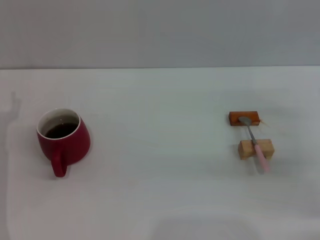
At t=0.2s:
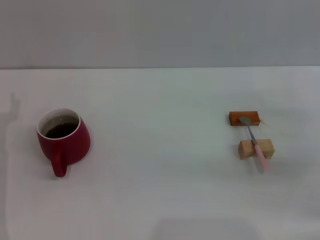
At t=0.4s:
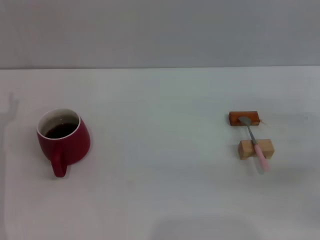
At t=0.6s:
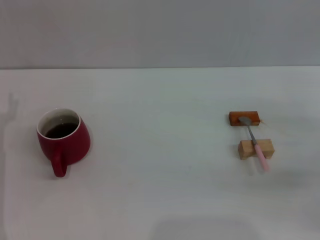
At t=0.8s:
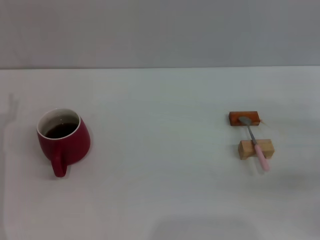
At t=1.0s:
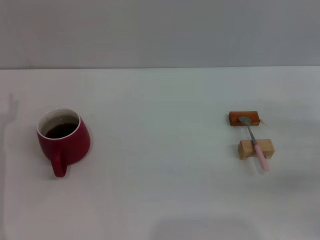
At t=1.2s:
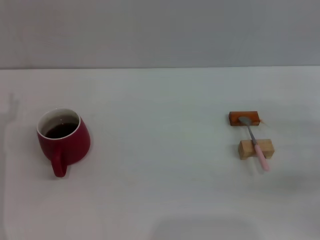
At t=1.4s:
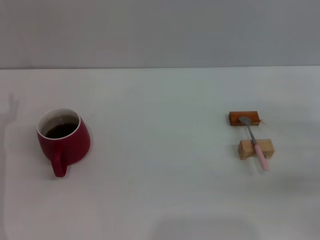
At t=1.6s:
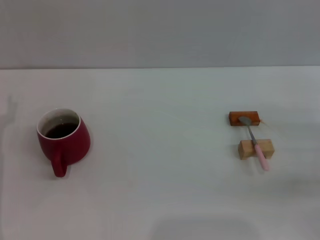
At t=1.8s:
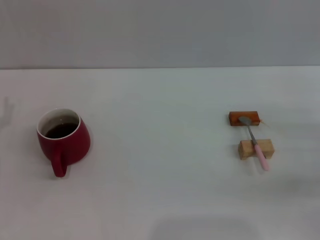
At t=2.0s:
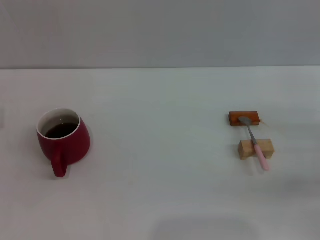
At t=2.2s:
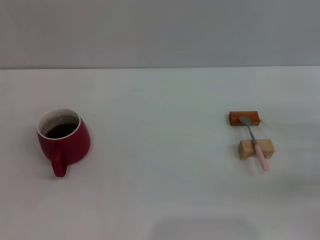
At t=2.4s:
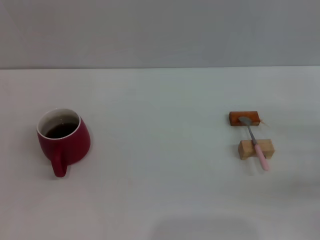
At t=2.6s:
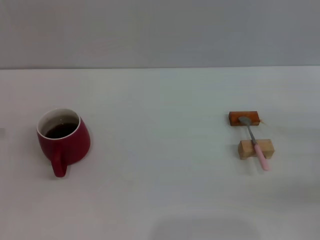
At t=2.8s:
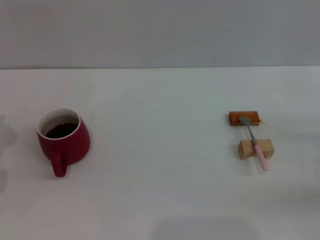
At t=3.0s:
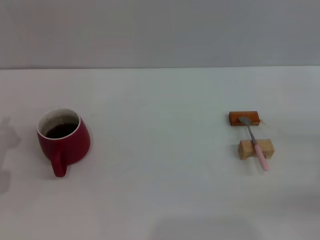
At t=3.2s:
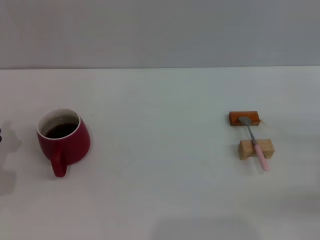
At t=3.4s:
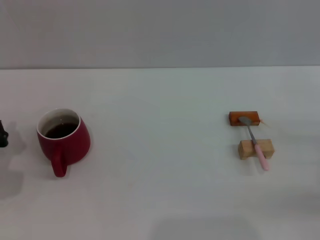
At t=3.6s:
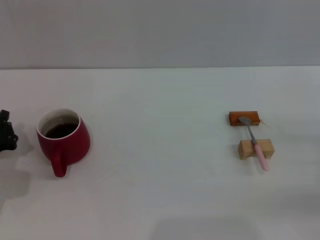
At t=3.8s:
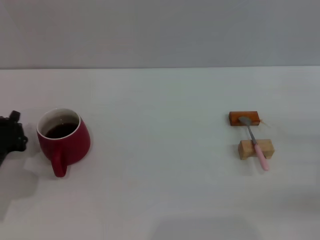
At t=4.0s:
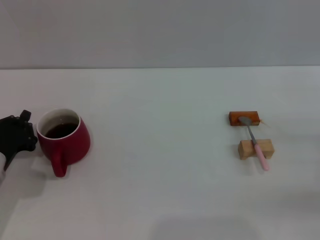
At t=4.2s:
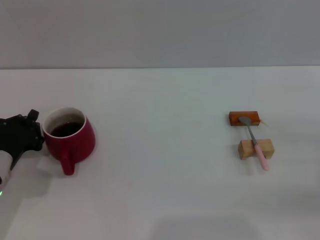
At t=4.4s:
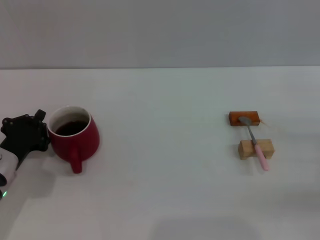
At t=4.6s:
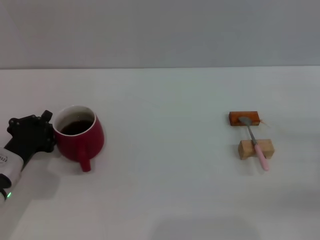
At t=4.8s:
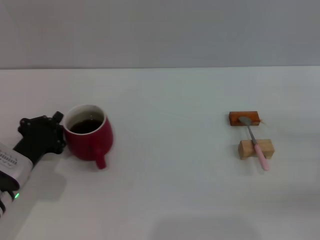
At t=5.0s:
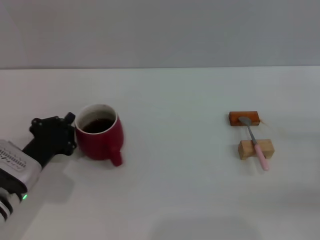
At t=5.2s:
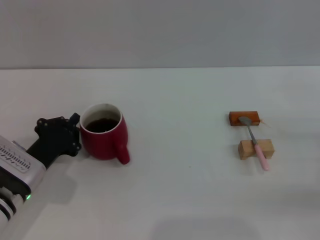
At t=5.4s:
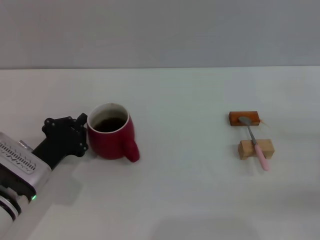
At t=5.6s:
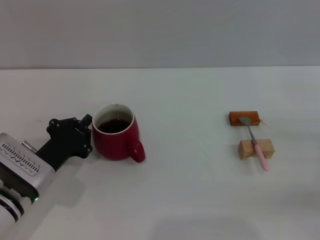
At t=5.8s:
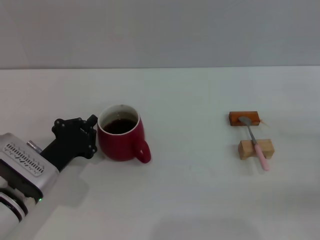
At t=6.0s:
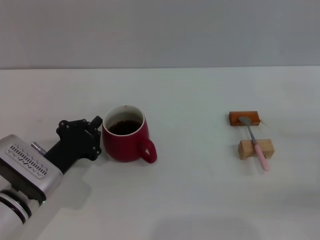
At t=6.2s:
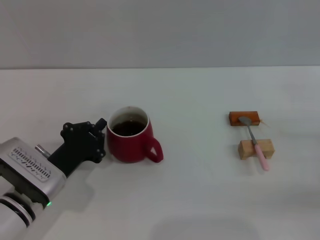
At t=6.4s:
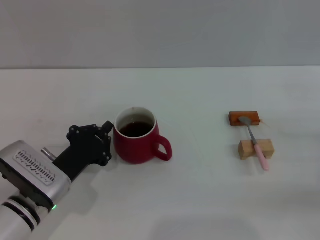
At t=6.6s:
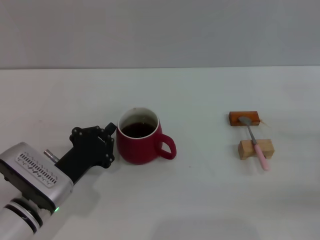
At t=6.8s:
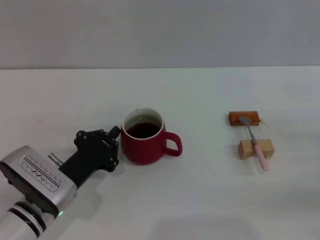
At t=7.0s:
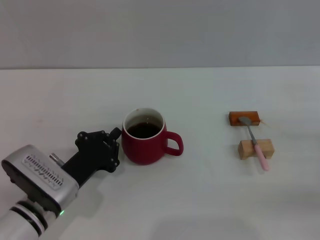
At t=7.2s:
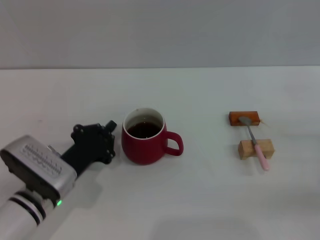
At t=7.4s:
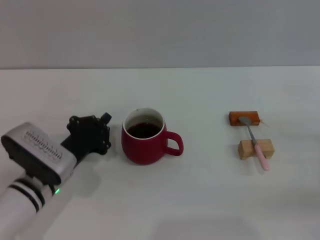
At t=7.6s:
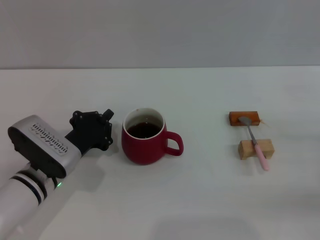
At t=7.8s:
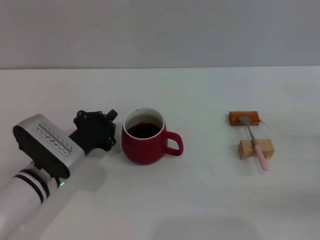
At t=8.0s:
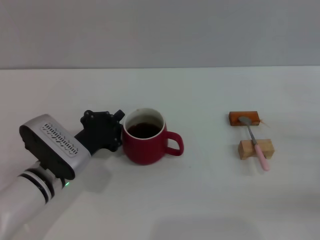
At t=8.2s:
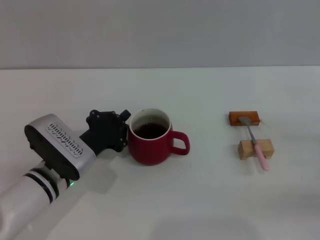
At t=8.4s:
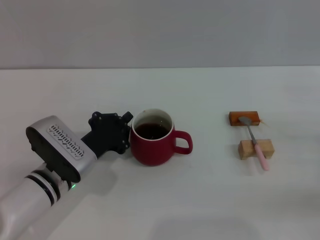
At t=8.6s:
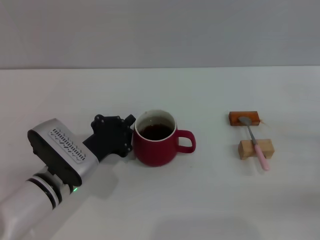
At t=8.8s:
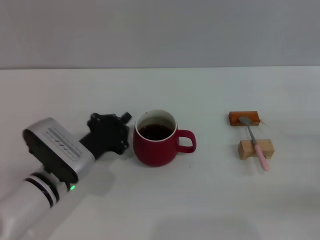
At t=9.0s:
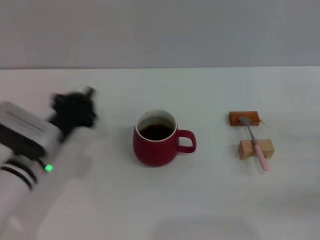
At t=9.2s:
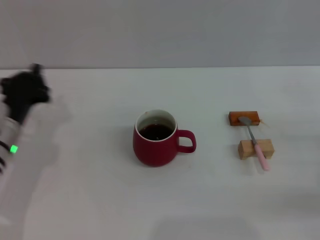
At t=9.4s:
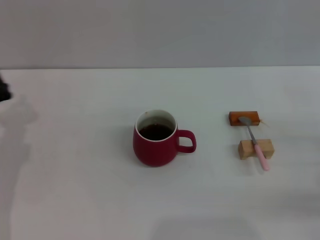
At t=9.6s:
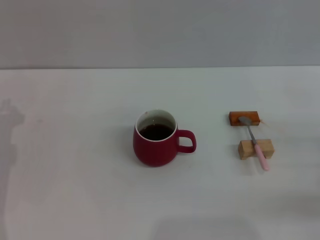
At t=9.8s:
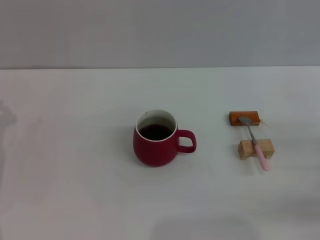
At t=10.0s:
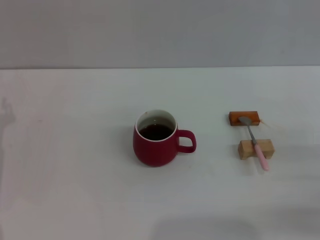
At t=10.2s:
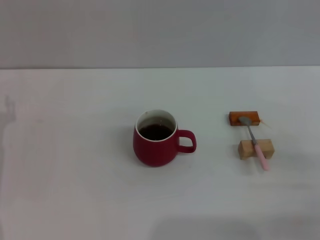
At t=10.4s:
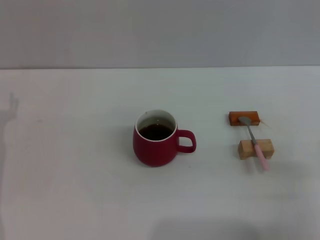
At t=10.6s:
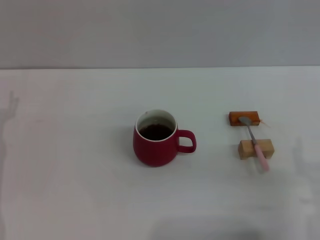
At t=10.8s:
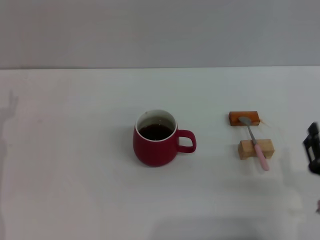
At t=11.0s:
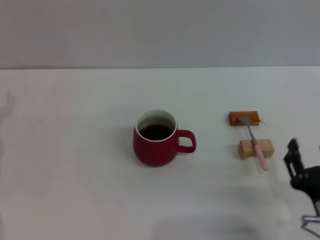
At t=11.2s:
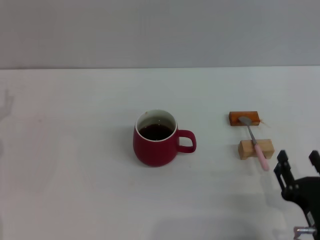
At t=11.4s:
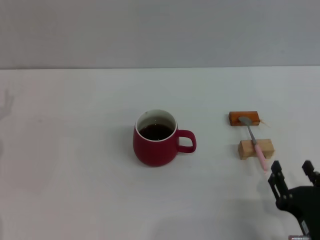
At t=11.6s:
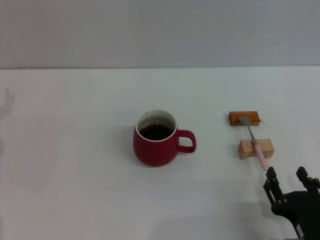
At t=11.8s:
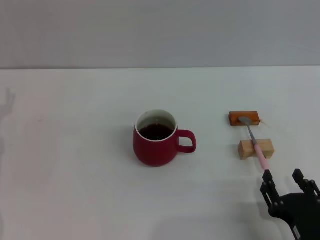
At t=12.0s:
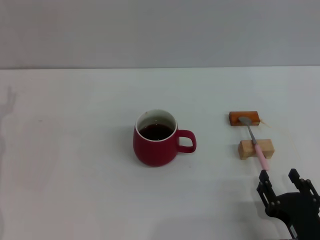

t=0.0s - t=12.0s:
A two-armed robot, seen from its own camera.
Task of the whole recording: Move the red cup to the center, lift the pink spoon, stir it three times in the cup, and put the spoon into the cup.
Step, t=0.0s - t=8.8s: Move the cup with coffee to the center of view with the left gripper.
t=3.0s - t=4.4s: The left gripper ends up about 5 cm from where it was.
t=4.4s - t=6.0s: The left gripper moves to the right, roughly 5 cm.
t=6.0s - t=9.0s: There are only small adjustments of the grippers.
t=9.0s - t=10.4s: The right gripper moves to the left and backward, roughly 10 cm. The left gripper shifts some 10 cm to the left, and opens.
t=10.4s - t=12.0s: The right gripper shifts approximately 10 cm to the left and backward.

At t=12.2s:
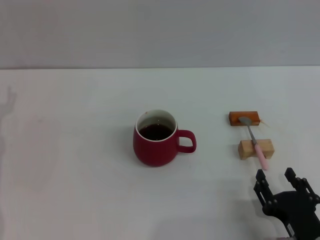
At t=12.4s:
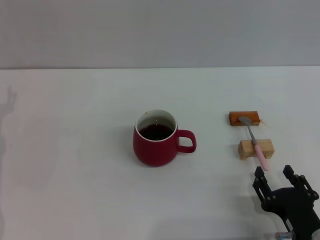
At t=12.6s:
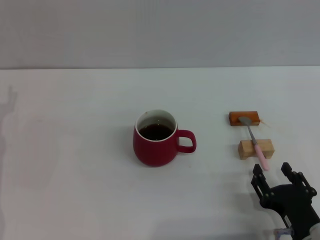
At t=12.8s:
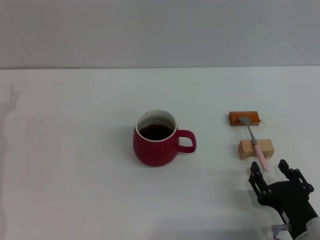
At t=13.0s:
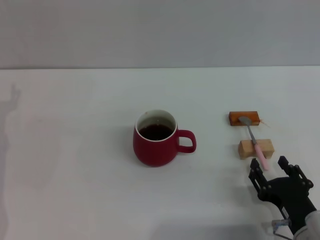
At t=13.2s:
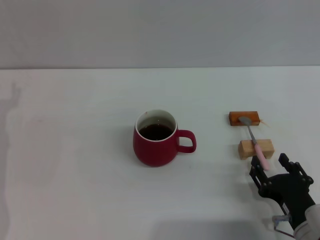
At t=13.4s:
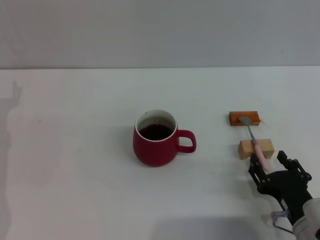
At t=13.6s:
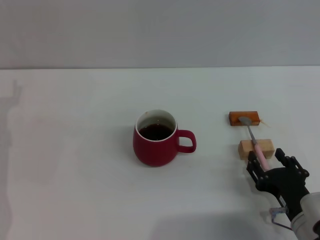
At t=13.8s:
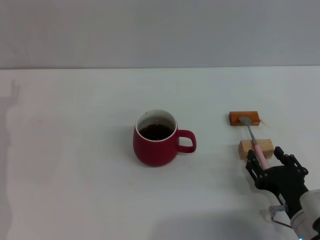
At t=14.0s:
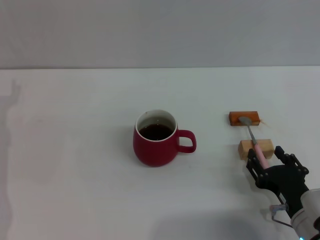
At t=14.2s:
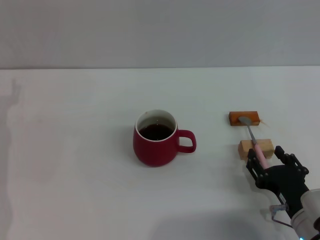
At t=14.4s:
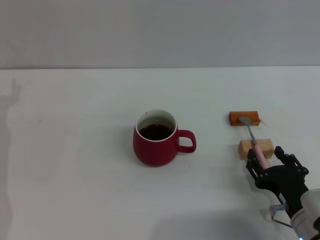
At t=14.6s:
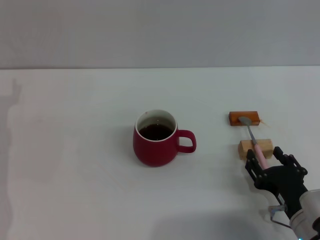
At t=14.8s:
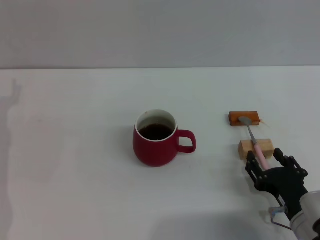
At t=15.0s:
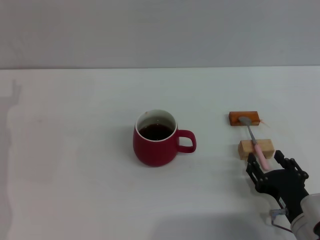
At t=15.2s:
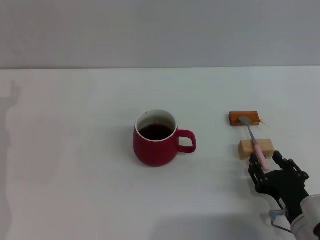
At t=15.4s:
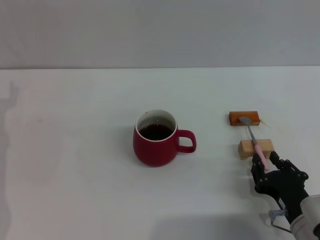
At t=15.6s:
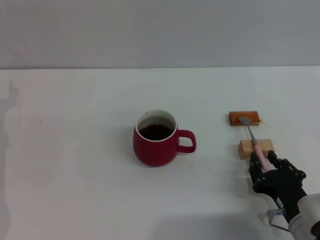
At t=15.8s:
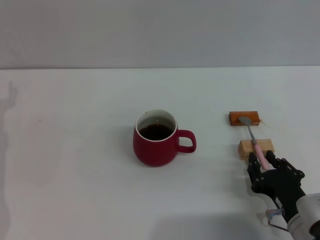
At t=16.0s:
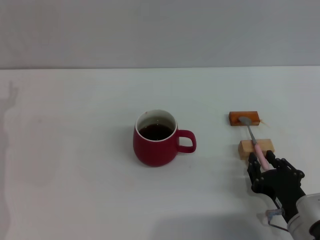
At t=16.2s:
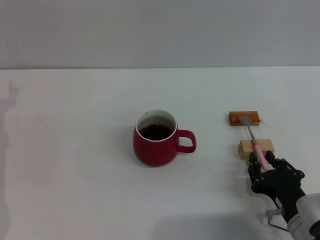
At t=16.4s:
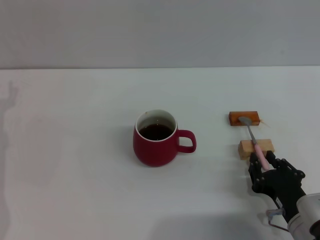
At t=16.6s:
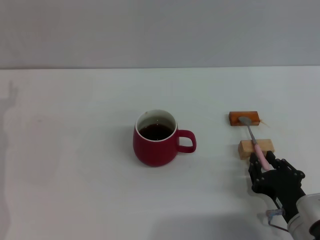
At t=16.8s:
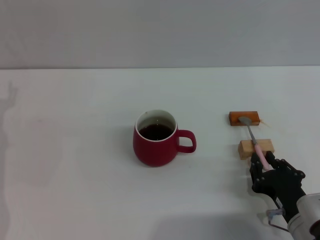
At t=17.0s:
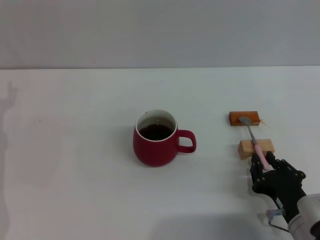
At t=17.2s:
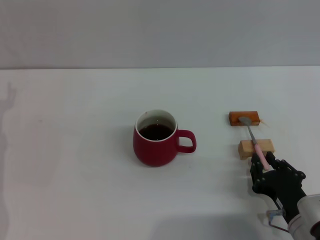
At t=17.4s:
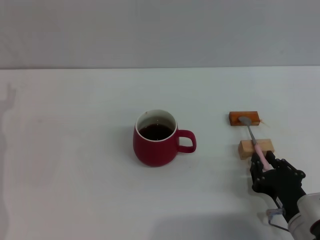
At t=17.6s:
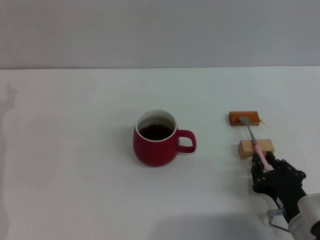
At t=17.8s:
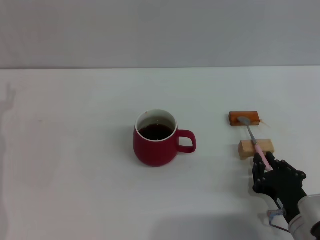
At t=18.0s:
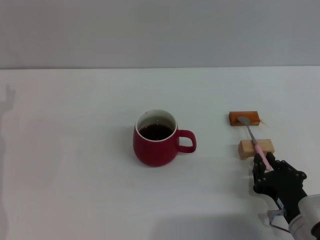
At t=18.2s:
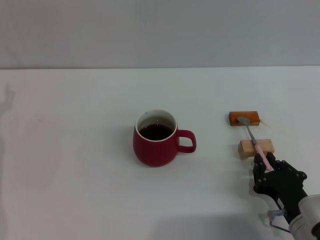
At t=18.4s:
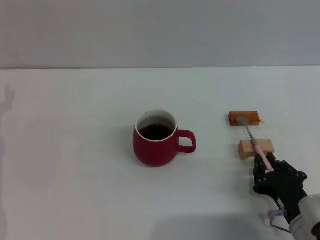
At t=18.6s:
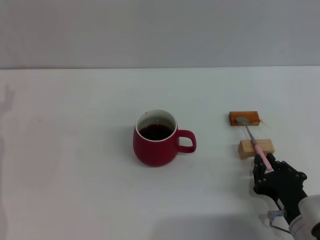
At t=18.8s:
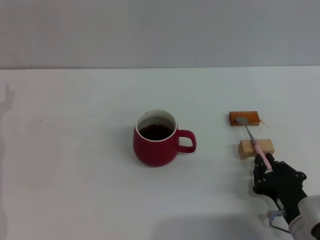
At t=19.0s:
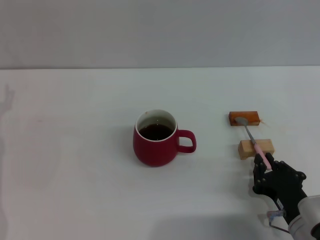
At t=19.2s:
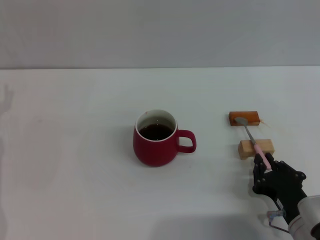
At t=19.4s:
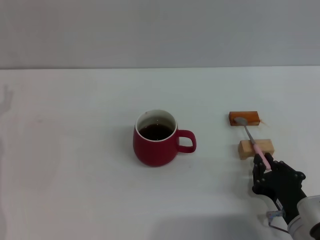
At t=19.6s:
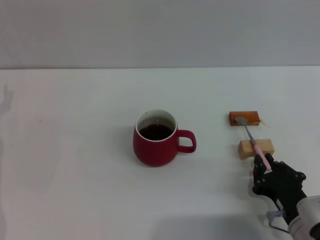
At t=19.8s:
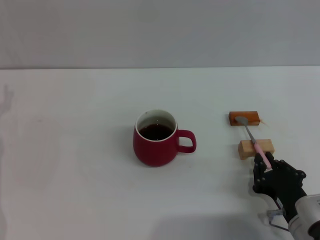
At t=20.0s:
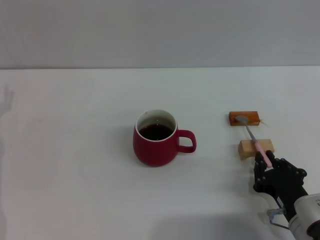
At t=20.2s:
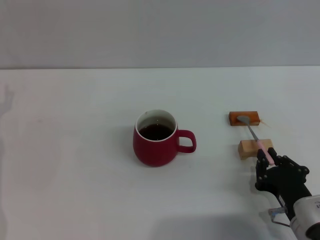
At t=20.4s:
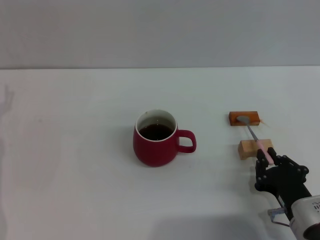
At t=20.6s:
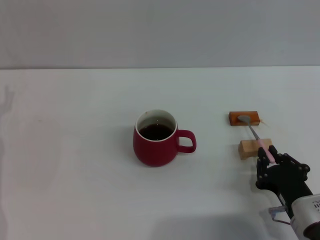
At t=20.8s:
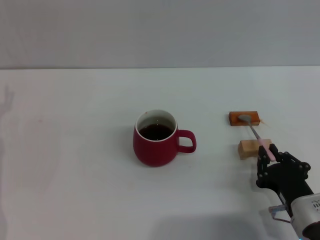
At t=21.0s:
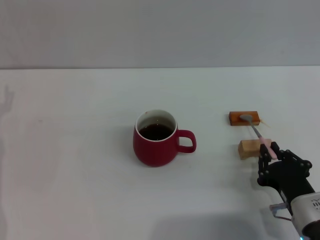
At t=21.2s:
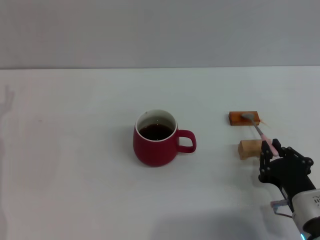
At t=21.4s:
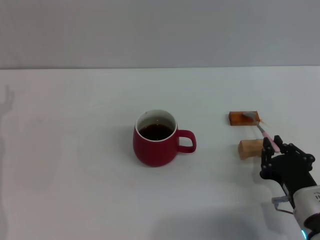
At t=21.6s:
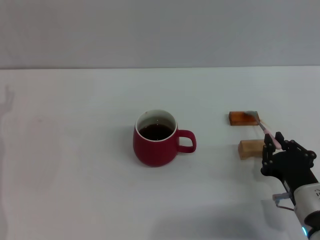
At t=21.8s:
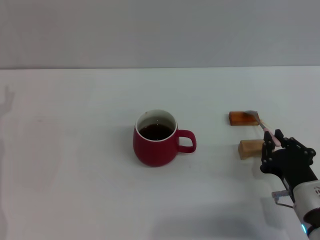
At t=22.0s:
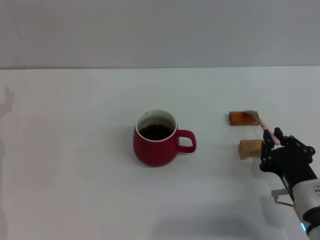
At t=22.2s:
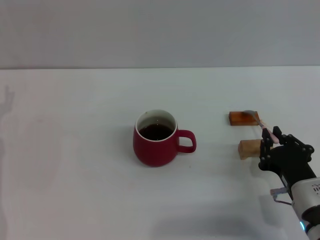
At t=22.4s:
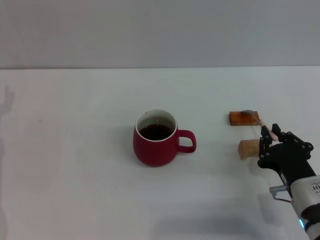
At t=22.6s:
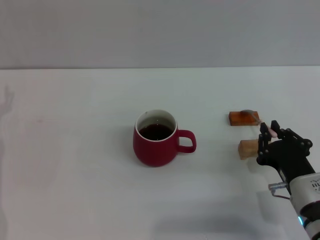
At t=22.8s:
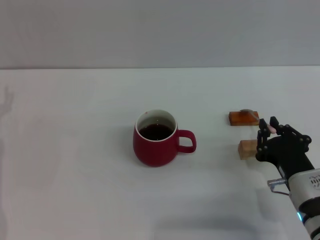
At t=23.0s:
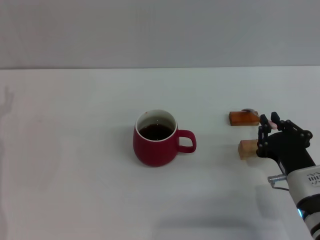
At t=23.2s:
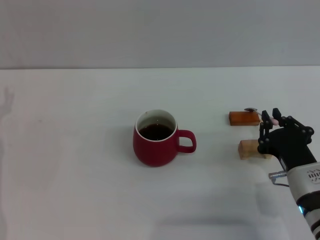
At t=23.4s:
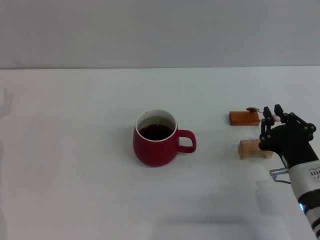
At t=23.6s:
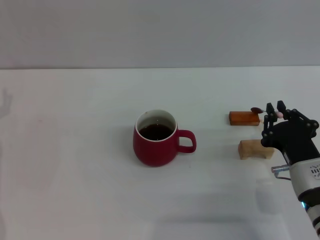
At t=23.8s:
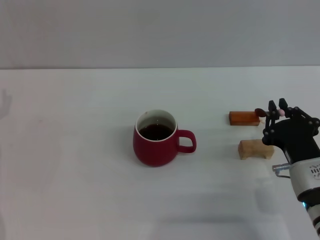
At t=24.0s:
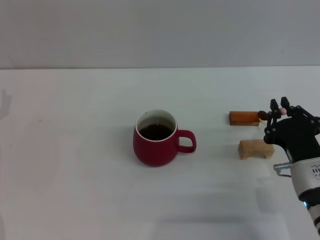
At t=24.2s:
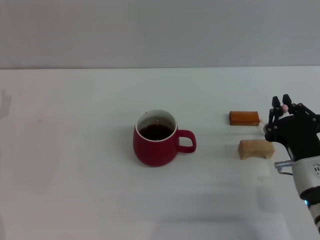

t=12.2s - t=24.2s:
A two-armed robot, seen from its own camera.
Task of the whole recording: Move the red cup to the center, lift the pink spoon, stir it three times in the cup, and put the spoon into the cup.
t=12.2s - t=13.8s: The right gripper is displaced forward by roughly 5 cm.
t=13.8s - t=15.2s: The two grippers keep their place.
t=15.2s - t=16.6s: The right gripper closes its fingers.
t=16.6s - t=19.8s: Neither gripper changes place.
t=19.8s - t=22.6s: The grippers stay close to where they were, moving slightly.
t=22.6s - t=24.2s: The grippers move only a little.
